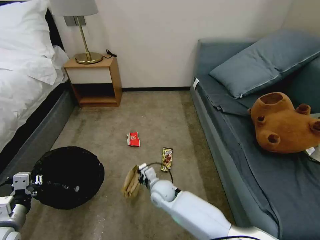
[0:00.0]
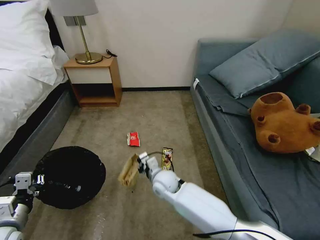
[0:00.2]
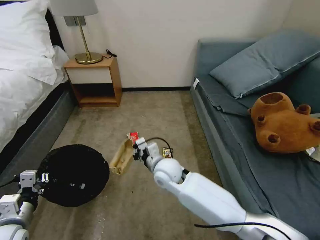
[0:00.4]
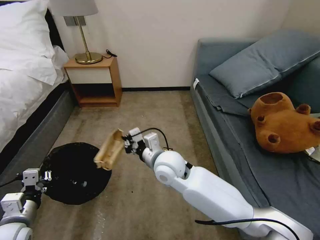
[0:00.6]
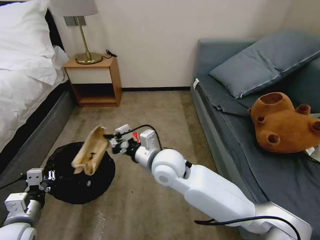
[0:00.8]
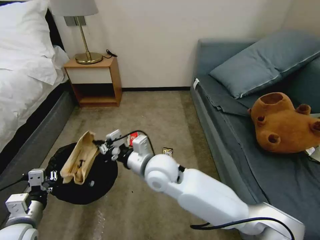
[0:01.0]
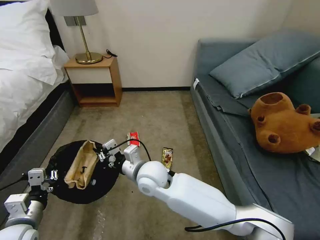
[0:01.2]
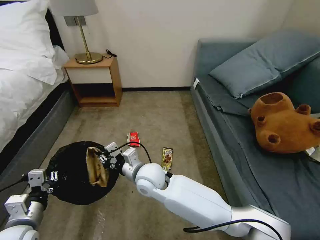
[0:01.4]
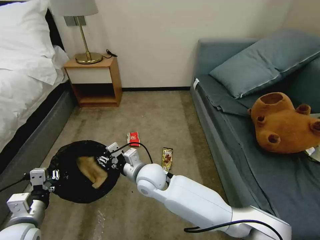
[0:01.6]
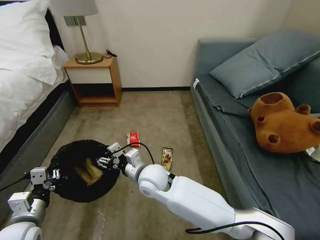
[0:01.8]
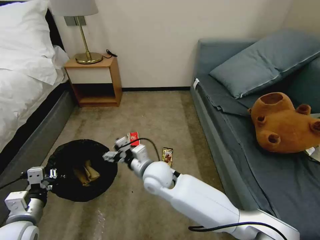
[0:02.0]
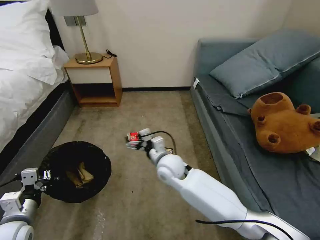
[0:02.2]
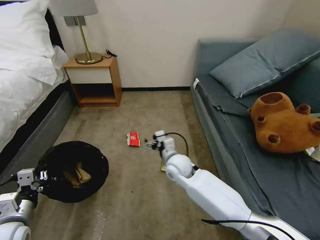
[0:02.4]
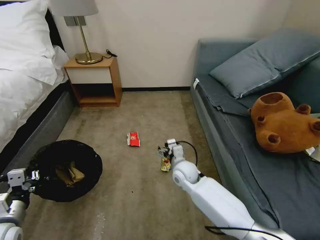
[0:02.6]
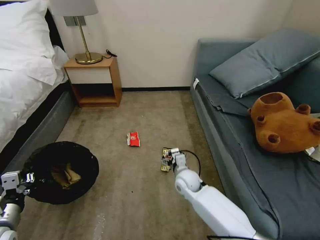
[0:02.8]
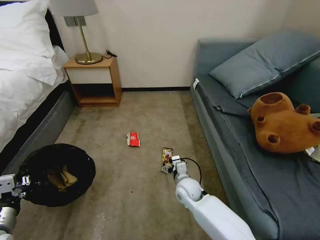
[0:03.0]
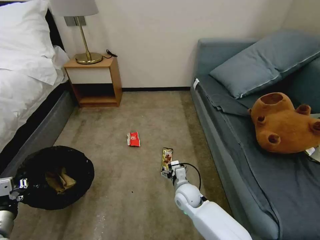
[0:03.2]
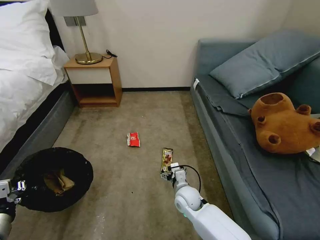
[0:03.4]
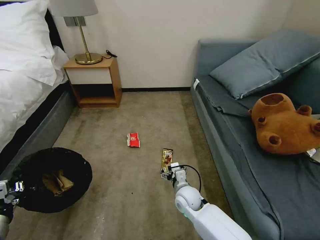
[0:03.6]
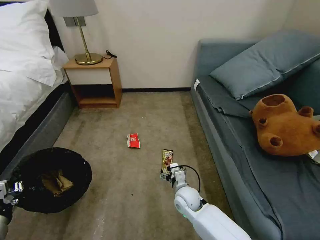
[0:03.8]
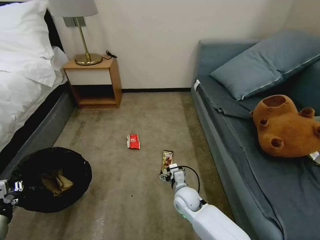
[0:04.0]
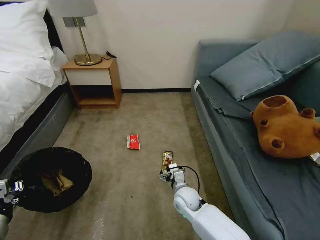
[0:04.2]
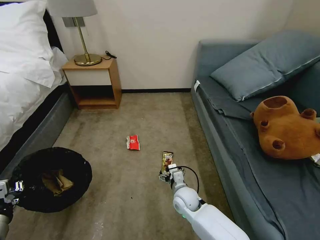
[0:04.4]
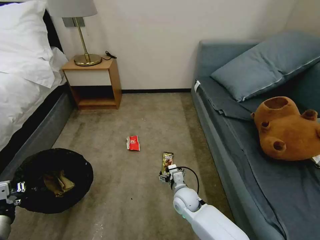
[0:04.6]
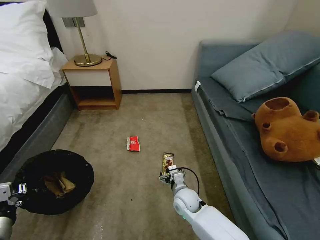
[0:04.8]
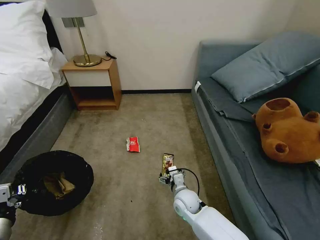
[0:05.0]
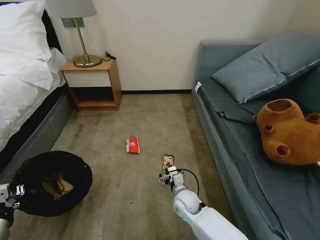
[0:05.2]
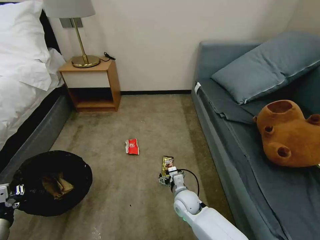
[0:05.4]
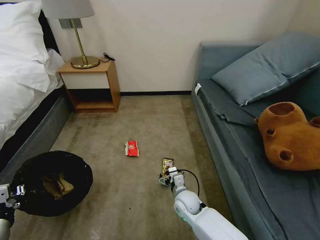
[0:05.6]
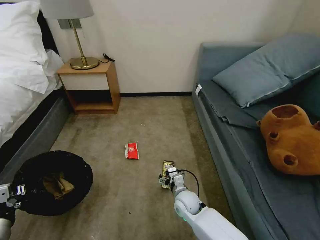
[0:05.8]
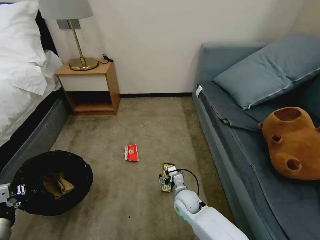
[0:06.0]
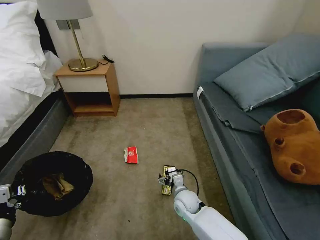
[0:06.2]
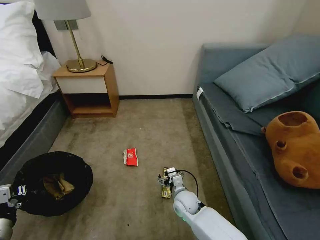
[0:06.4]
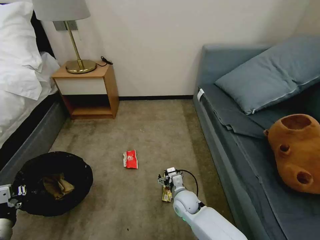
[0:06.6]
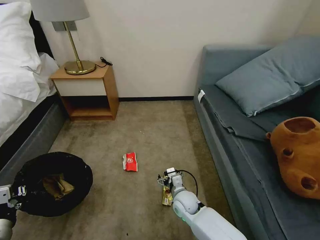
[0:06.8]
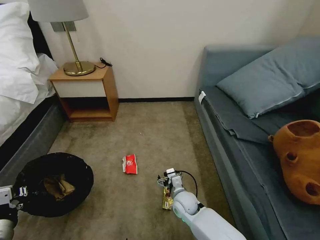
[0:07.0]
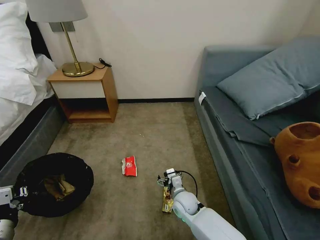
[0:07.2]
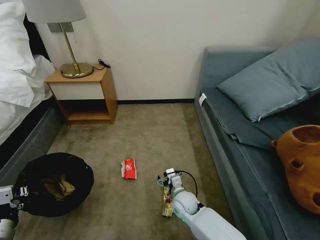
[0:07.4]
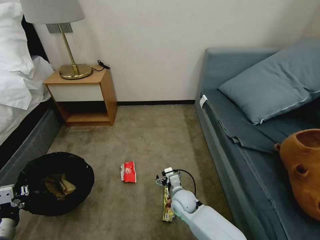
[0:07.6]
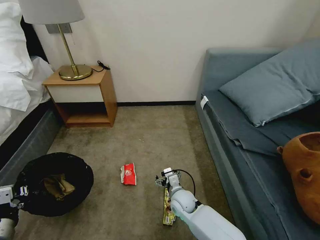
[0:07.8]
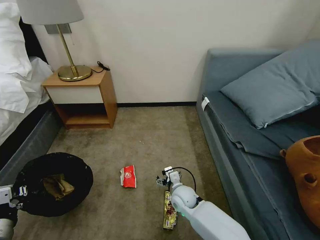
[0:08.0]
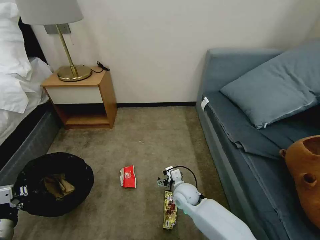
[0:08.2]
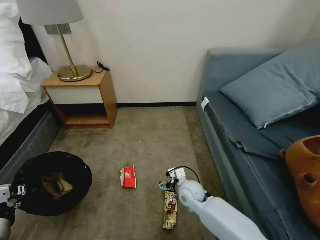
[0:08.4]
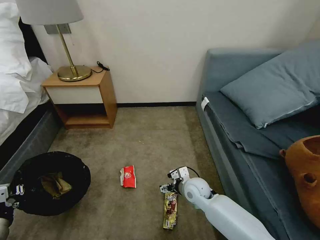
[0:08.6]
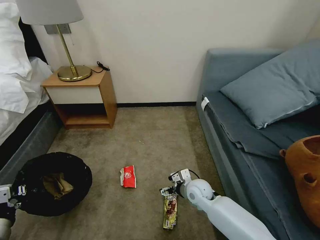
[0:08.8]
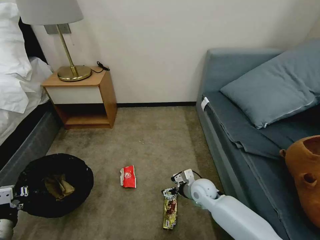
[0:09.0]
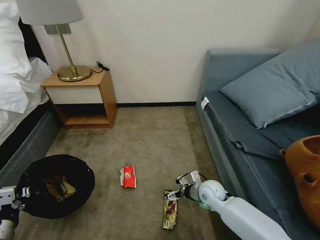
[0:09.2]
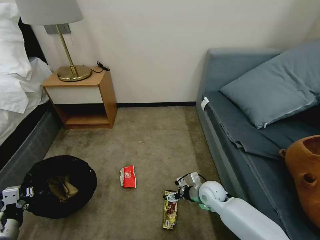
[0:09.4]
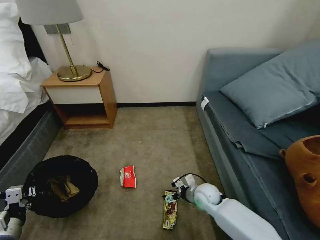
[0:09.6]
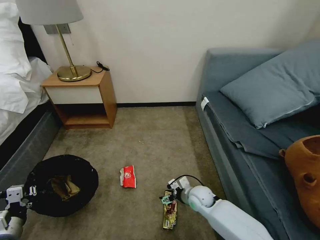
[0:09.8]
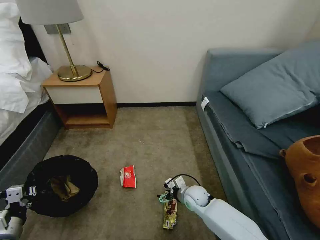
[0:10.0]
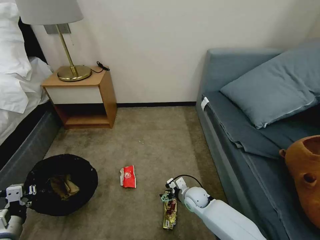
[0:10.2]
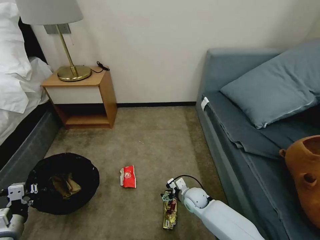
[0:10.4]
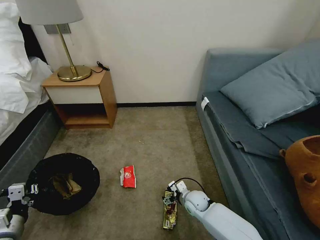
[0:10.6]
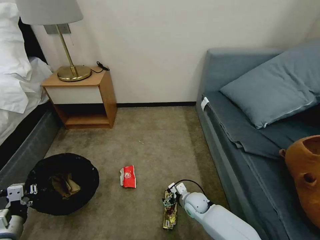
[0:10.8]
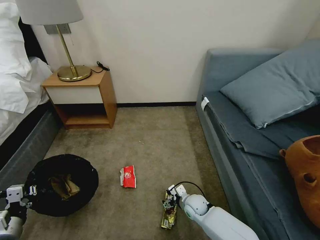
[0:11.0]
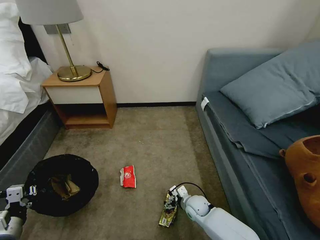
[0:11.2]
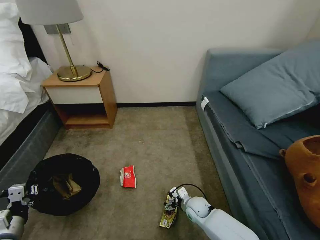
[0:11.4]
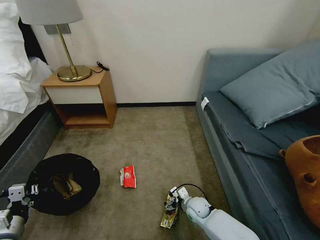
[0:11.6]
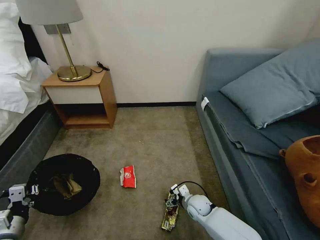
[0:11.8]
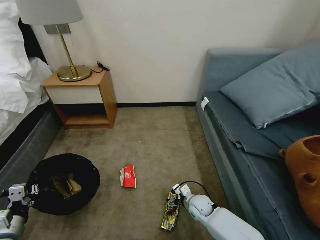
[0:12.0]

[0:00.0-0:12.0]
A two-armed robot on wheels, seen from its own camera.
Task of the whole recording: Pick up the trash bin, then pick up the garbage on the floor and place it into the trash bin.
0:00.0 to 0:01.6: The left gripper heads to the right, covering approximately 5 cm. The right gripper travels upward by some 15 cm, and opens.
0:01.6 to 0:03.0: The left gripper travels to the left by about 5 cm; the right gripper shifts roughly 20 cm to the right and downward, and opens up.
0:03.0 to 0:06.0: There are only small adjustments of the grippers.
0:07.6 to 0:09.0: The right gripper is displaced to the right by approximately 10 cm.
0:09.0 to 0:10.4: The right gripper heads downward, covering approximately 10 cm.
0:10.4 to 0:12.0: There are only small adjustments of the grippers.

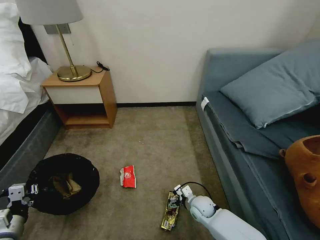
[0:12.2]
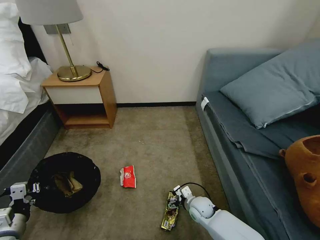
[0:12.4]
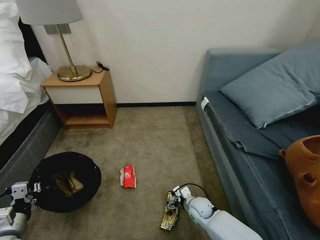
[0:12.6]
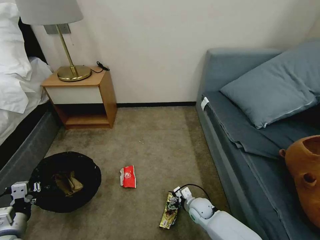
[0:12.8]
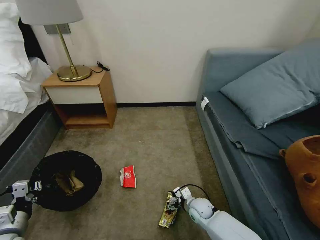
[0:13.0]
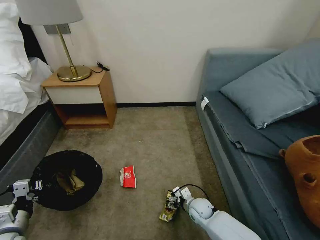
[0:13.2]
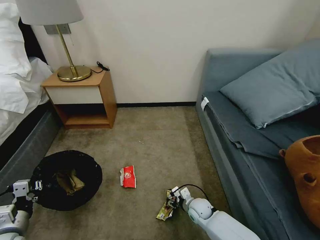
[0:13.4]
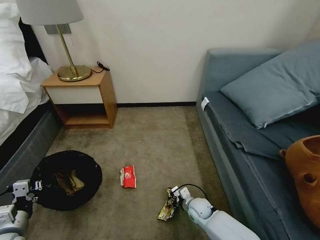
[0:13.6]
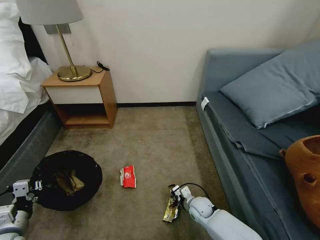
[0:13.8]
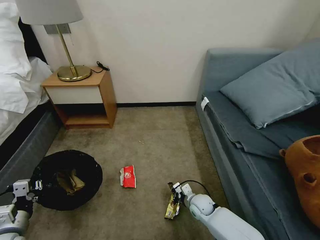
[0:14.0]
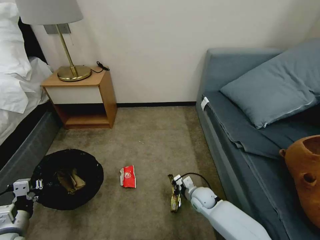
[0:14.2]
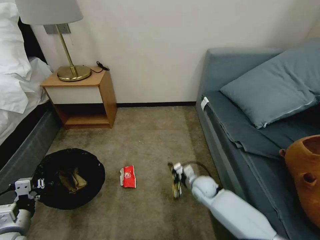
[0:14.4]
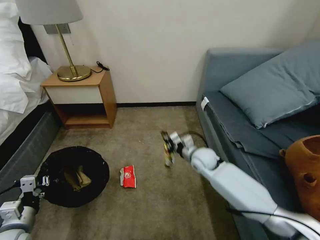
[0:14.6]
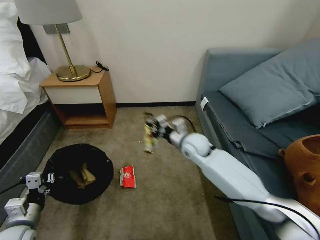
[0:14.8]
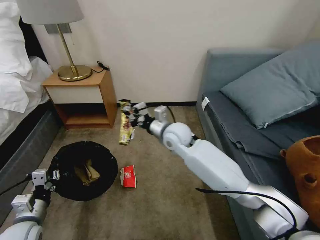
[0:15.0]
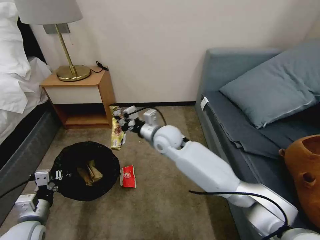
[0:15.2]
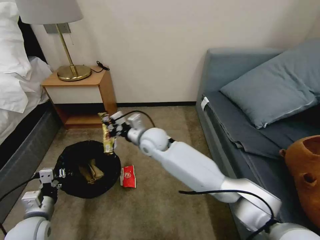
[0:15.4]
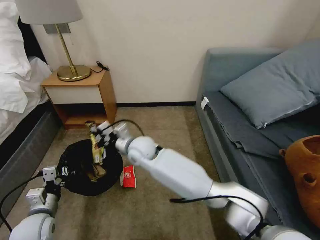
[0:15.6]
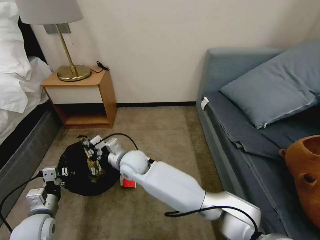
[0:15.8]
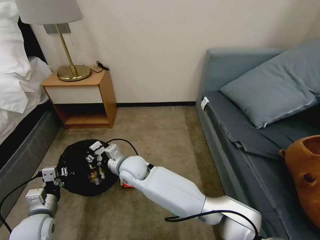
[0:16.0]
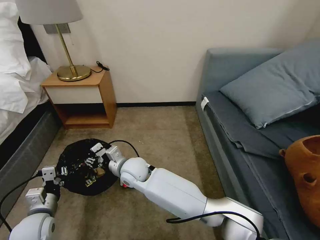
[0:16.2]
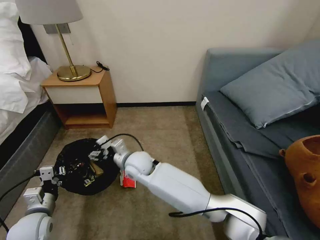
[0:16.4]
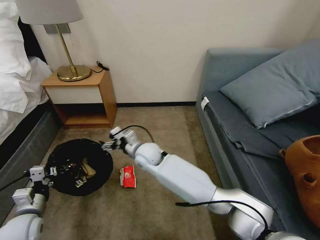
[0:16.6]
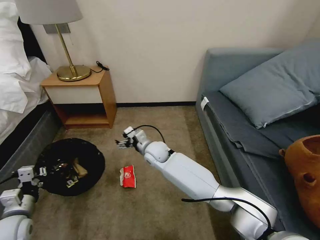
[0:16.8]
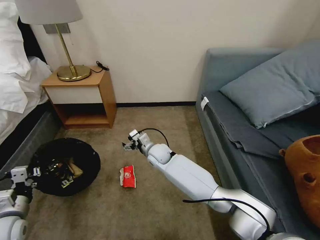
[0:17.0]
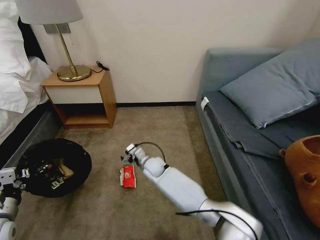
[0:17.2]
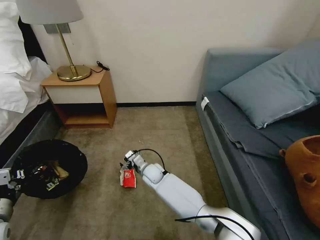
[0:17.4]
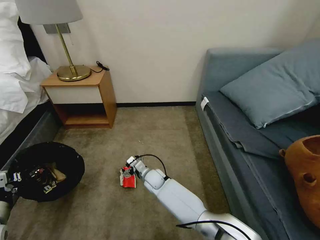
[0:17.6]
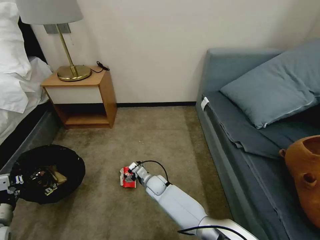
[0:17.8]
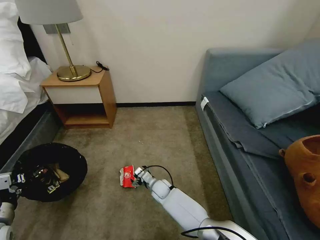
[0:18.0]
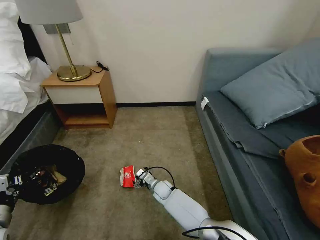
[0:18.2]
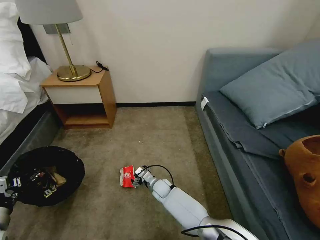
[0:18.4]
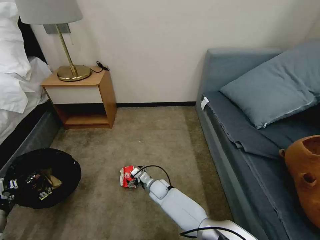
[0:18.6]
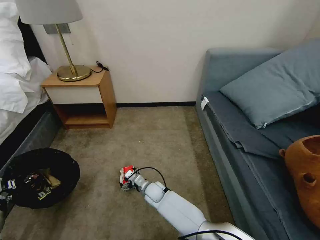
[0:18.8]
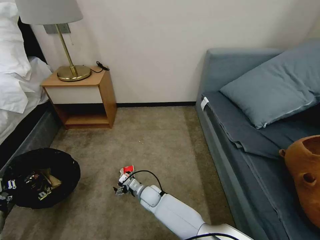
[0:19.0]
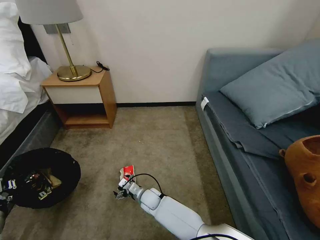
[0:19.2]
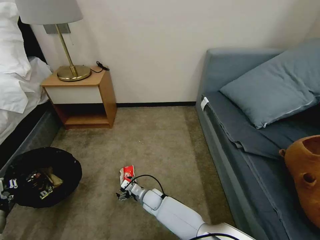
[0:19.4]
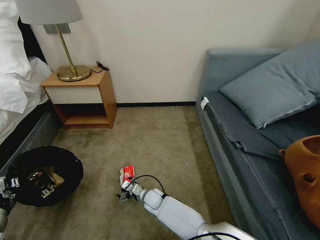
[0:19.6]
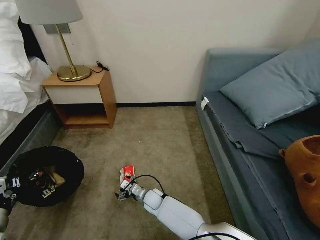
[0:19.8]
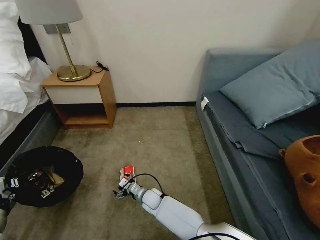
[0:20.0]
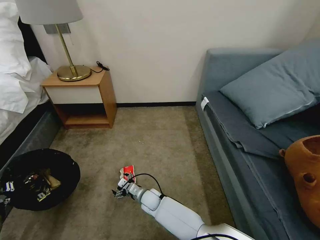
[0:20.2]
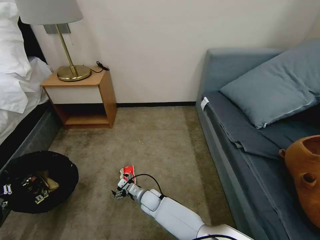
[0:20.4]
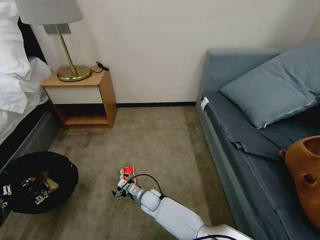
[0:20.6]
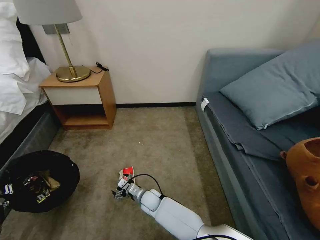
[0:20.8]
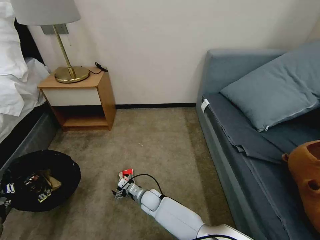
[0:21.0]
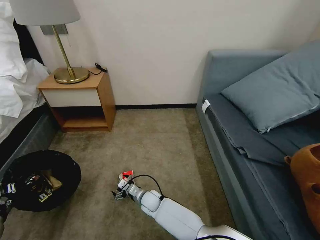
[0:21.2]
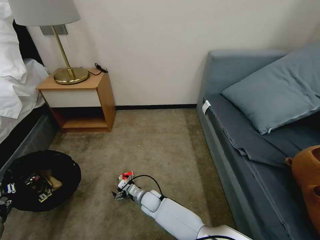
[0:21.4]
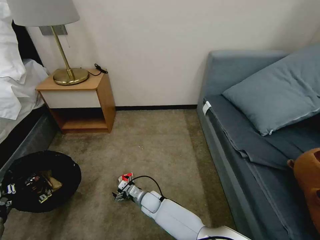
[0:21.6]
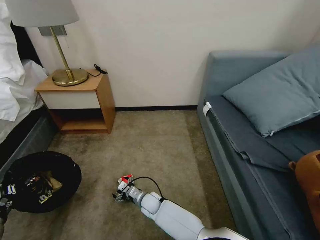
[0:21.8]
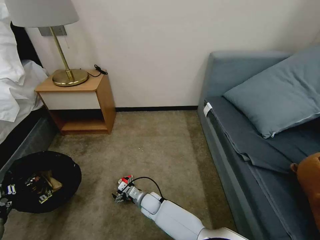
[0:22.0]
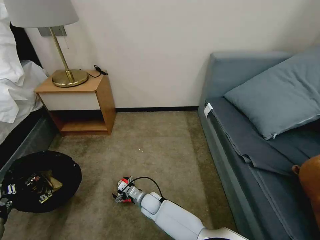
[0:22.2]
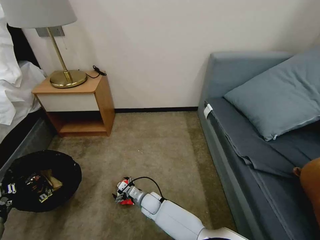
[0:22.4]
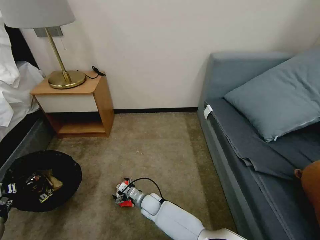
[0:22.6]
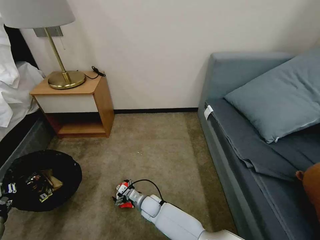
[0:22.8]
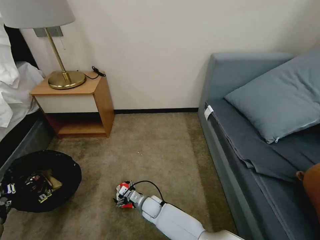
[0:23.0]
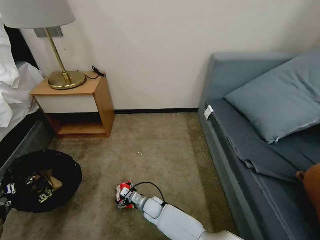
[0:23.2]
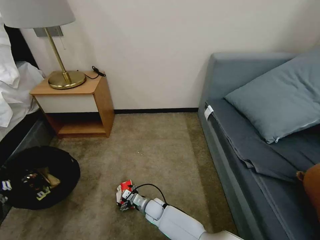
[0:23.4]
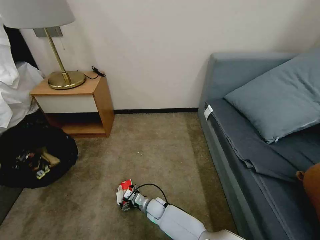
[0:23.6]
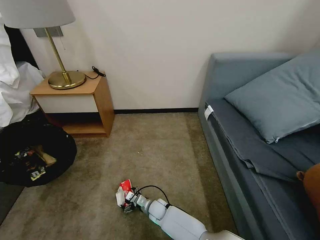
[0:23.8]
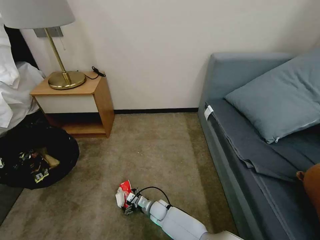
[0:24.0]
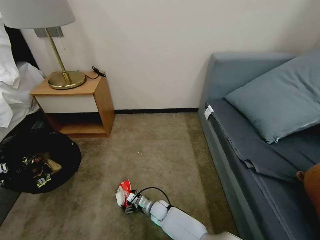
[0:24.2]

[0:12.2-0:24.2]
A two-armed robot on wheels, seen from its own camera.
Task of the whole recording: Pick up the trash bin, then pick up the garbage on the floor and place it into the trash bin.
0:12.2 to 0:13.8: The right gripper closes up.
0:13.8 to 0:15.2: The left gripper goes about 5 cm to the right; the right gripper is displaced upward, to the left and forward by about 35 cm.
0:15.2 to 0:16.6: The right gripper travels downward and to the left by some 10 cm, and opens up.
0:16.6 to 0:18.2: The right gripper moves downward, about 25 cm, while the left gripper moves to the left, approximately 10 cm.
0:18.2 to 0:19.8: The right gripper changes place by some 5 cm.
0:19.8 to 0:21.2: The grippers move only a little.
0:21.2 to 0:22.6: Neither gripper changes place.
0:22.6 to 0:24.2: The left gripper travels upward by approximately 10 cm. The right gripper heads downward, covering some 5 cm.
